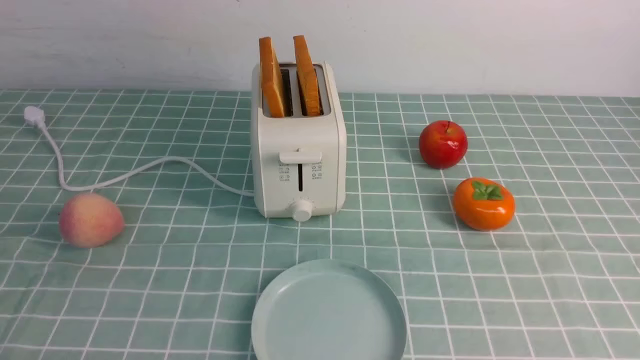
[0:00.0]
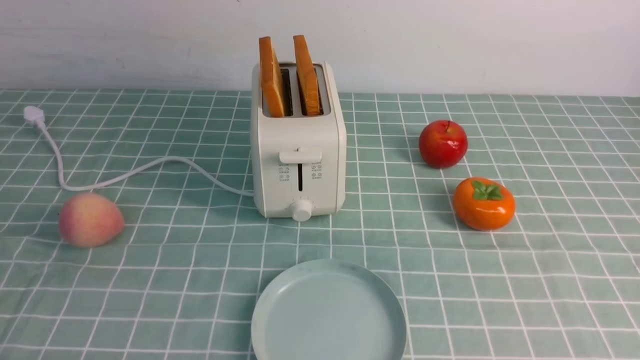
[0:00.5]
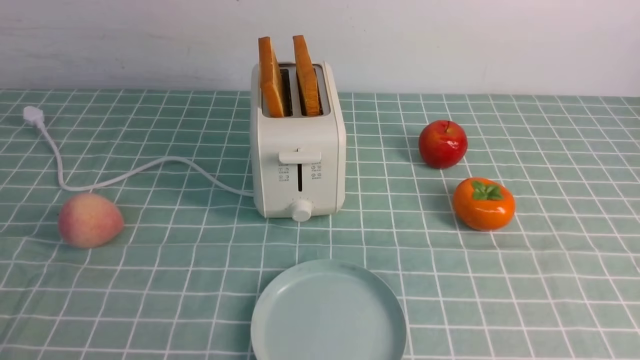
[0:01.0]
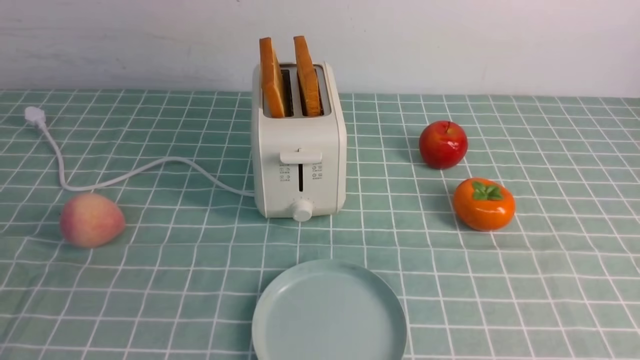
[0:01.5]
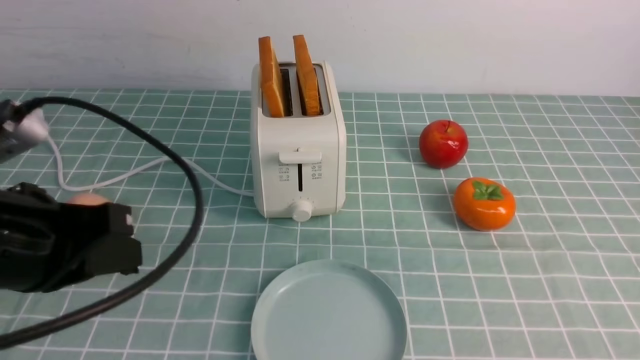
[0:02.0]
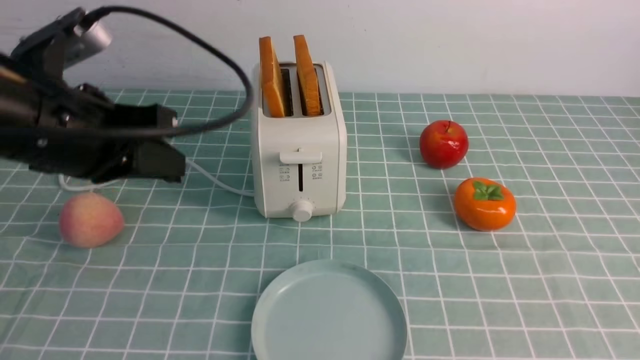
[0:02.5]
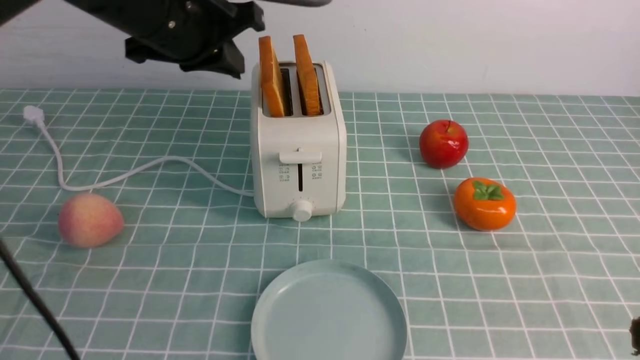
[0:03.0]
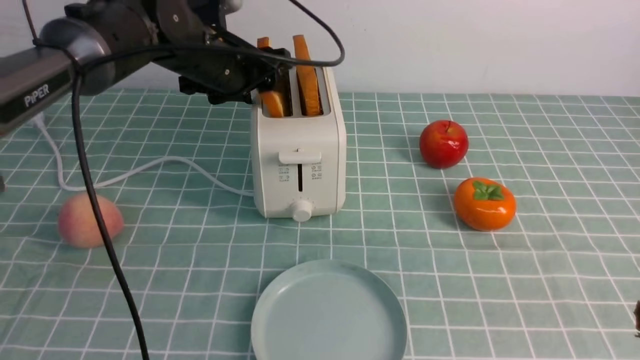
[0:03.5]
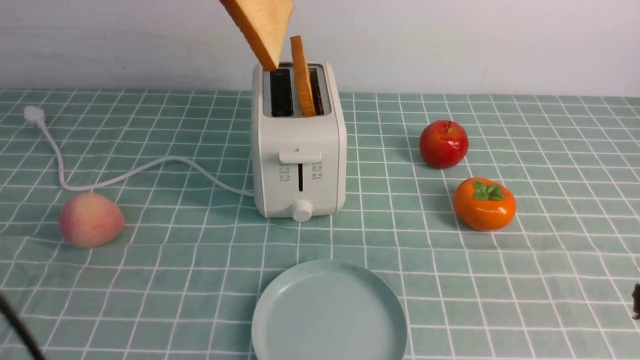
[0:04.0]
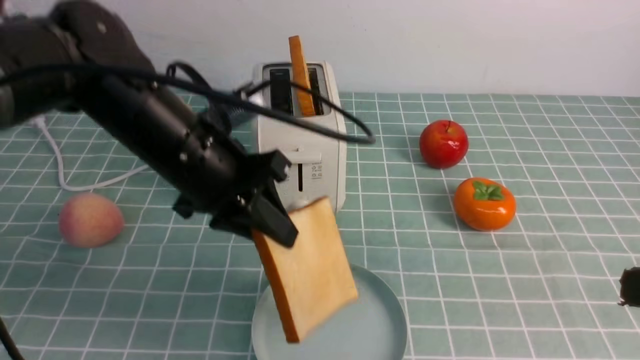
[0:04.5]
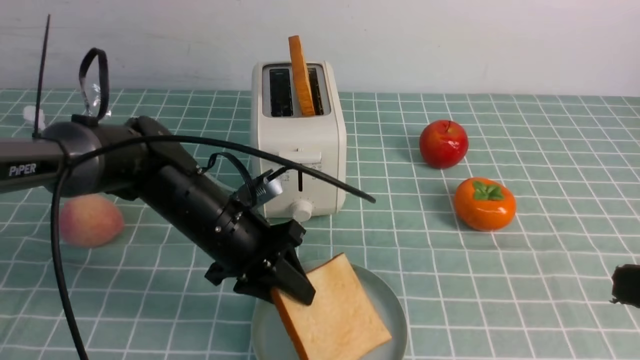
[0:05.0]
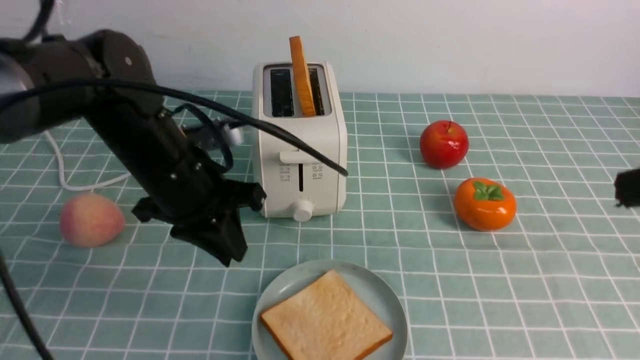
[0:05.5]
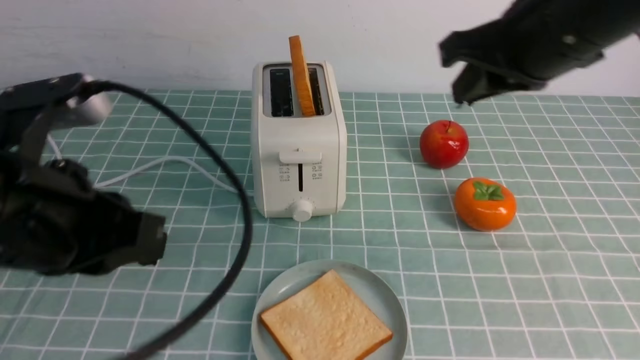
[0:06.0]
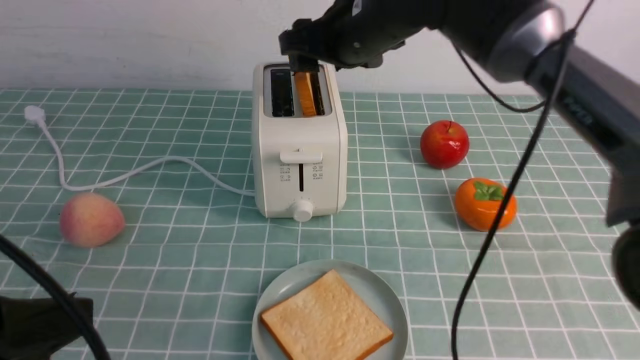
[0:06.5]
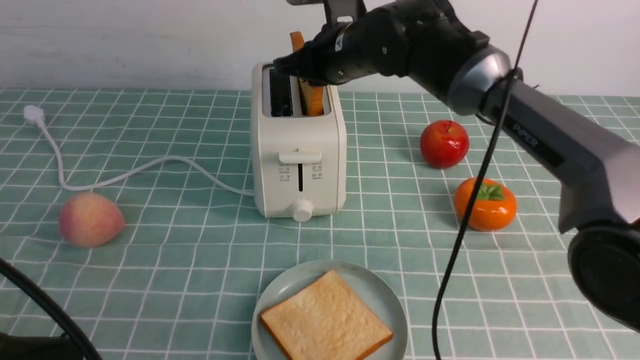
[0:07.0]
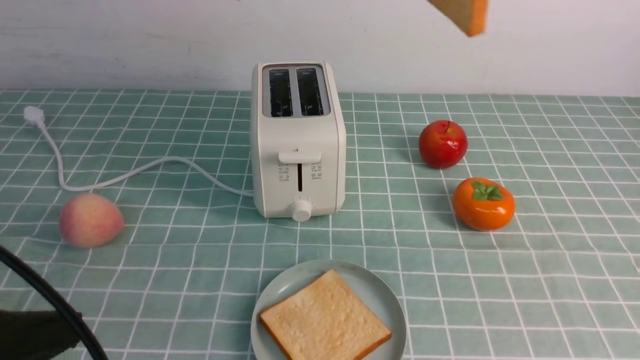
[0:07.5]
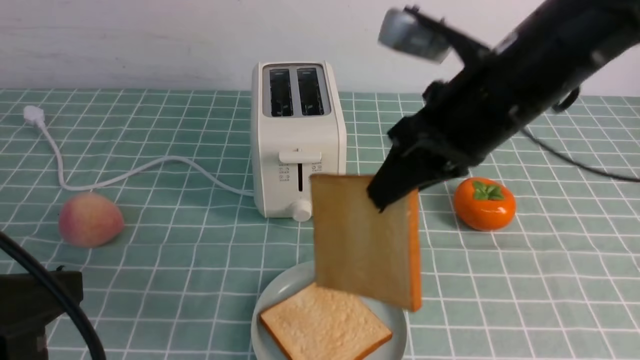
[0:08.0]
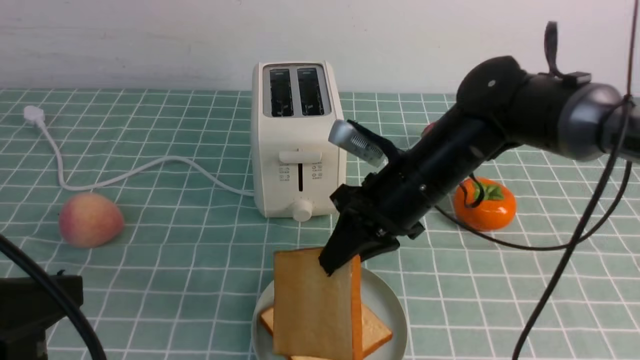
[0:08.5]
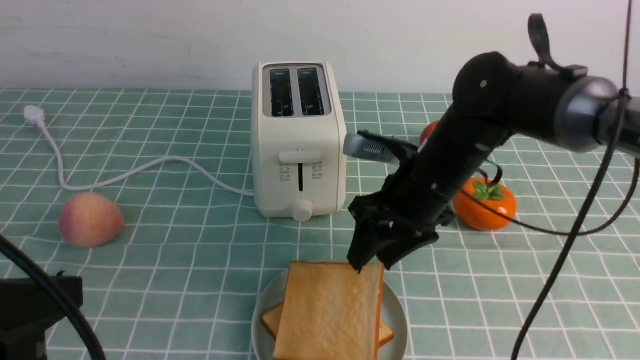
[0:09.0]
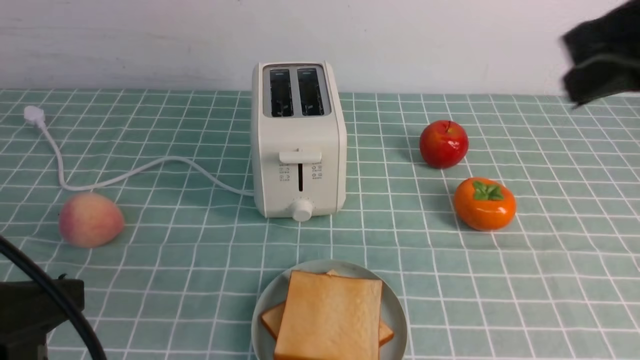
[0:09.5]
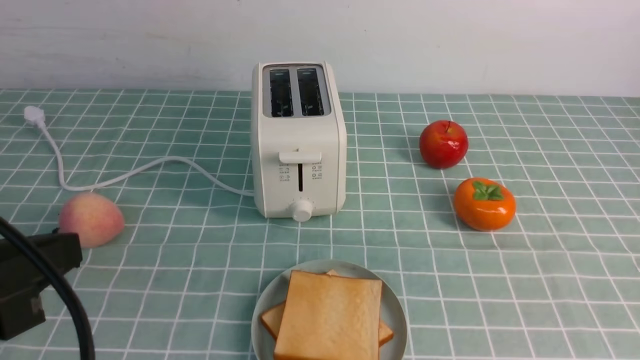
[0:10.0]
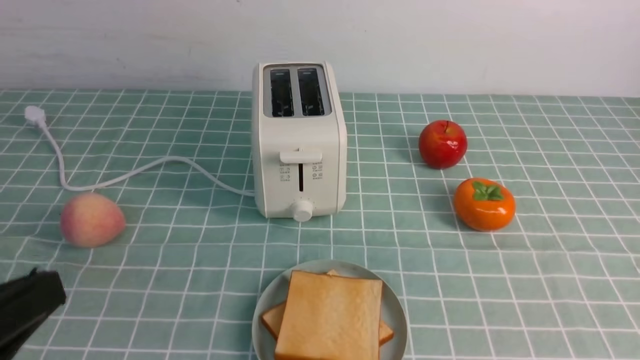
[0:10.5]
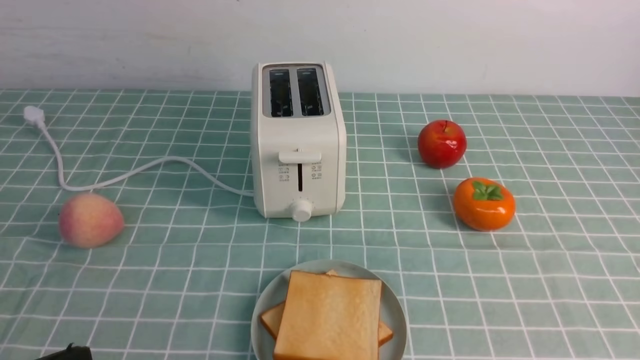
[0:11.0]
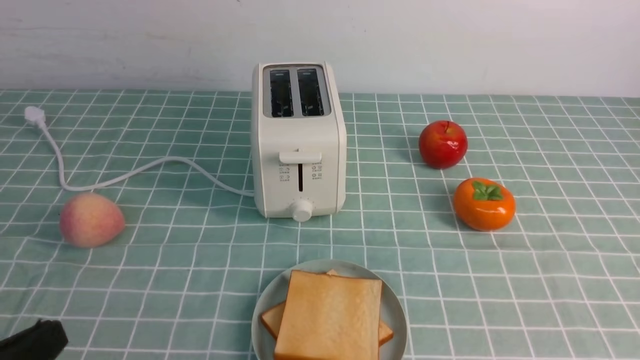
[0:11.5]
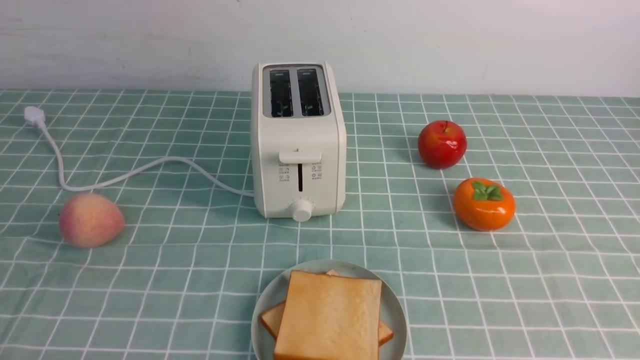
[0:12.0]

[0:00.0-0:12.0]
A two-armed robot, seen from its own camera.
Task of the whole recording: take toasted bread from bread machine on blue coffee table place on plate.
Step, 0:00.0 to 0:04.0: use the left arm to take out a slice of bread.
Step, 0:04.5 to 0:05.5: use the left arm to put a slice of bread into the empty plate.
Step, 0:06.0 to 0:07.5: use the right arm to take out a slice of bread.
Step, 0:08.0 to 0:09.0: use the right arm to put a slice of bread into the plate.
0:00.0 to 0:02.0: The left gripper shifts about 20 cm upward and forward, and closes.
0:02.0 to 0:04.0: The left gripper goes about 20 cm forward and upward, and opens, then closes once more. Meanwhile the right gripper goes approximately 15 cm upward and forward, and closes up.
0:04.0 to 0:06.0: The right gripper is displaced forward, to the left and upward by some 25 cm. The left gripper is displaced backward and downward by roughly 20 cm, and opens, then closes once more.
0:06.0 to 0:08.0: The right gripper swings up and down, approximately 15 cm each way, with 2 reversals, and opens, then closes again; the left gripper travels backward by approximately 10 cm.
0:08.0 to 0:10.0: The right gripper moves backward and to the right, about 35 cm, and opens and closes again.
0:10.0 to 0:12.0: The left gripper is displaced downward by about 15 cm.

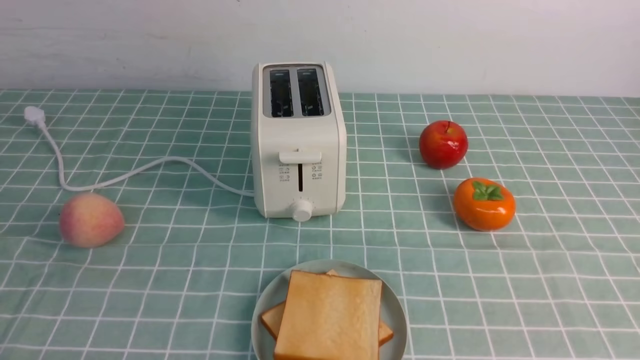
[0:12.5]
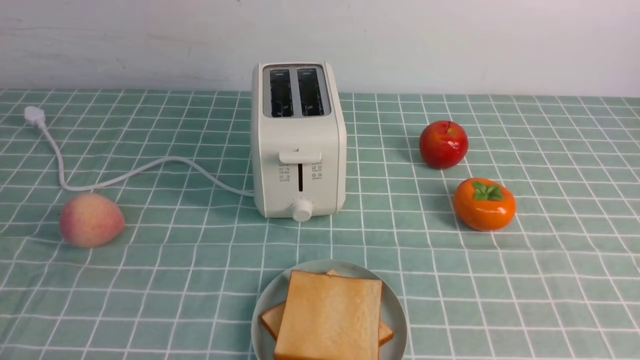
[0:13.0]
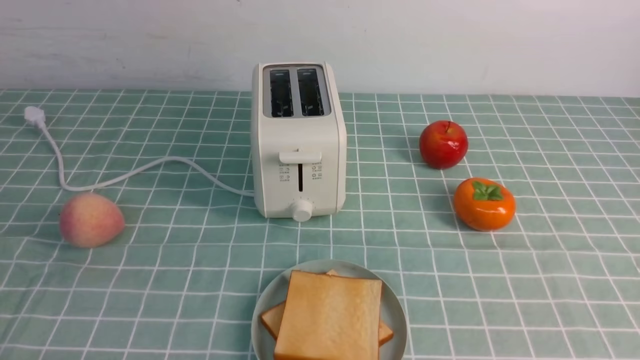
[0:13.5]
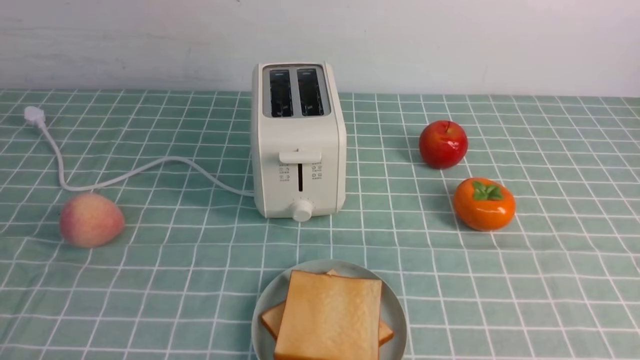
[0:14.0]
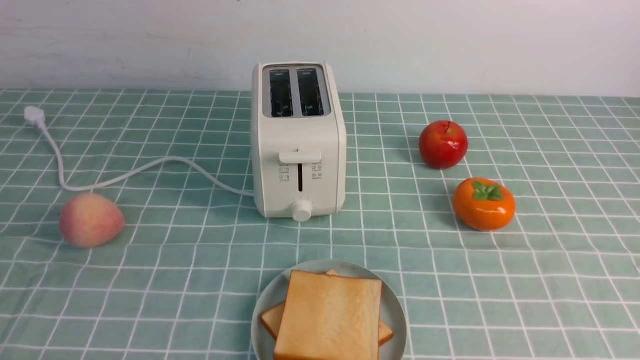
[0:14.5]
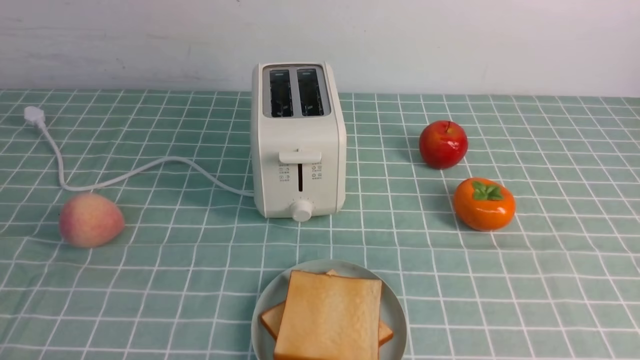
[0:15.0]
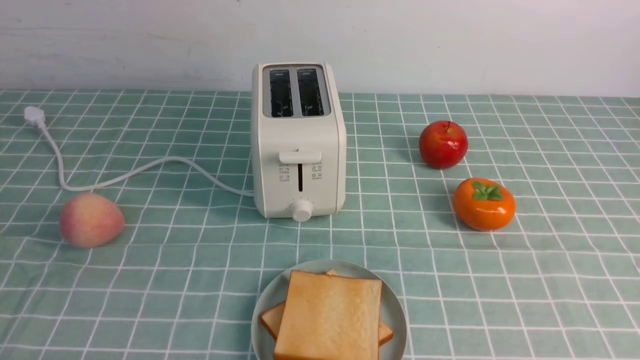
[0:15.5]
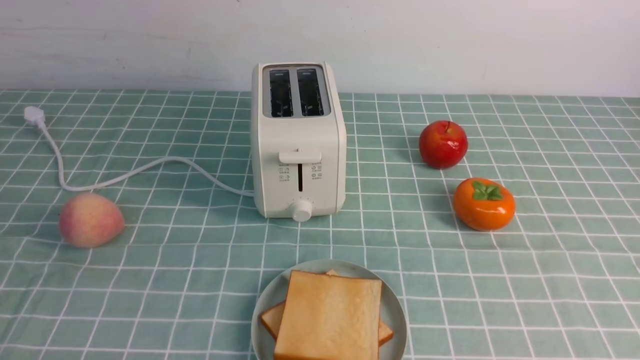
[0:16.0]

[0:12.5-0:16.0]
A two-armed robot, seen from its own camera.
Task of the whole recording: take toasted bread from bread machine on blue coffee table place on plate.
0:14.5 to 0:16.0: Both grippers stay about where they are.
